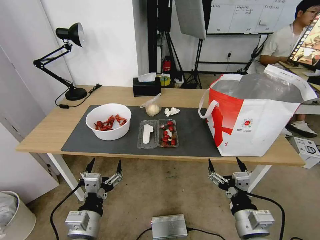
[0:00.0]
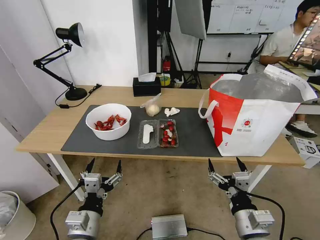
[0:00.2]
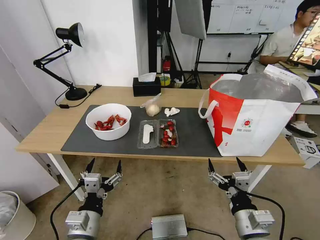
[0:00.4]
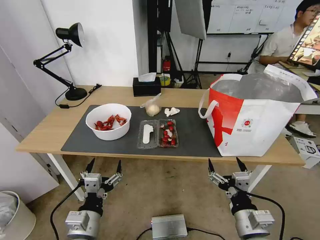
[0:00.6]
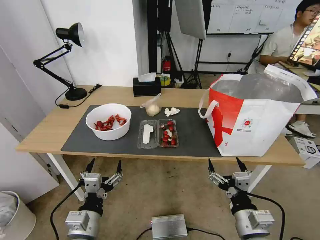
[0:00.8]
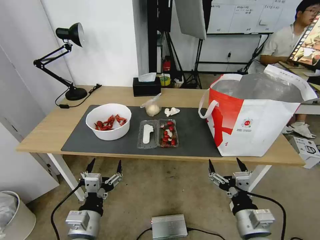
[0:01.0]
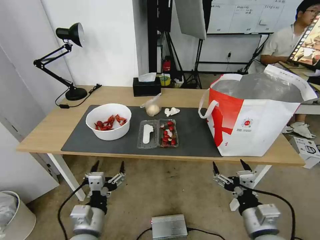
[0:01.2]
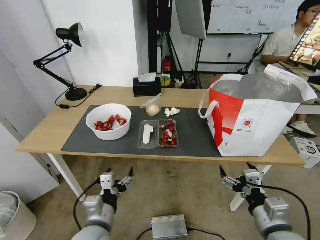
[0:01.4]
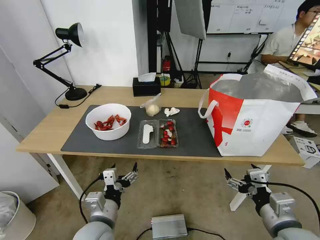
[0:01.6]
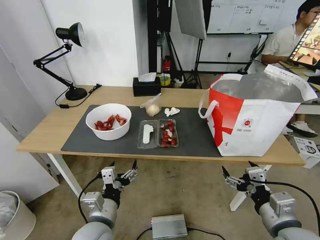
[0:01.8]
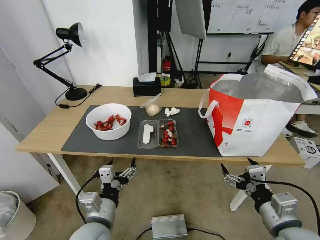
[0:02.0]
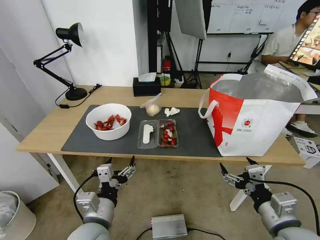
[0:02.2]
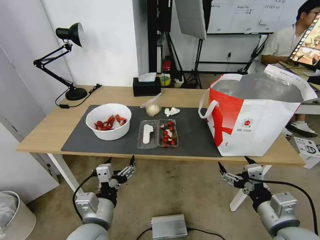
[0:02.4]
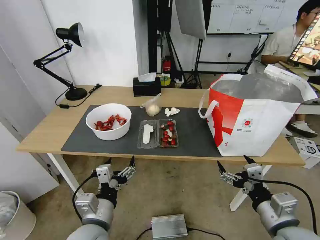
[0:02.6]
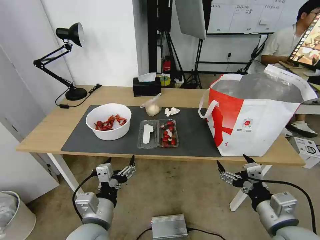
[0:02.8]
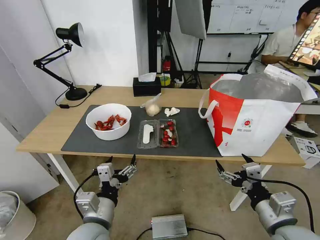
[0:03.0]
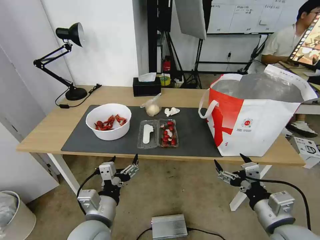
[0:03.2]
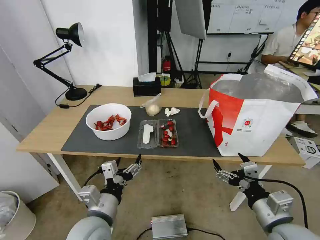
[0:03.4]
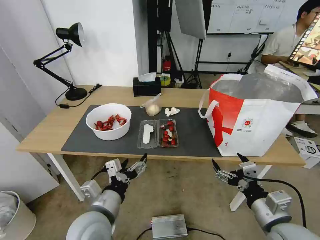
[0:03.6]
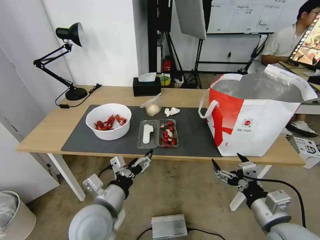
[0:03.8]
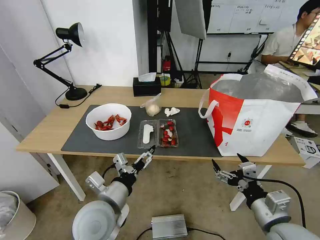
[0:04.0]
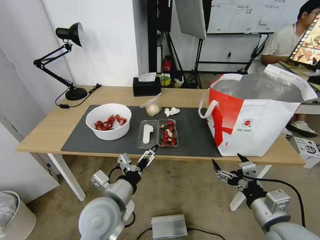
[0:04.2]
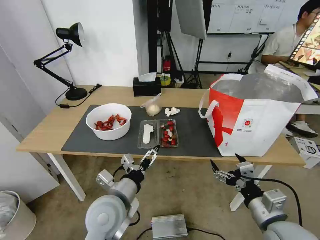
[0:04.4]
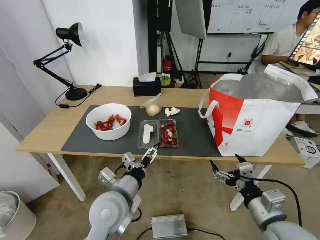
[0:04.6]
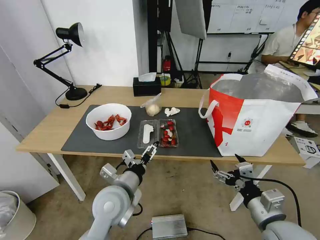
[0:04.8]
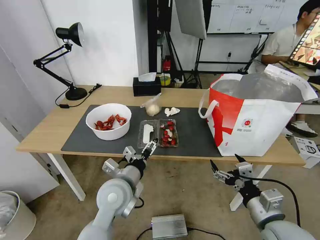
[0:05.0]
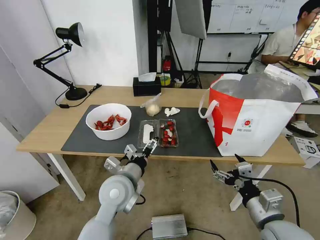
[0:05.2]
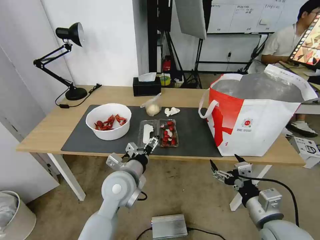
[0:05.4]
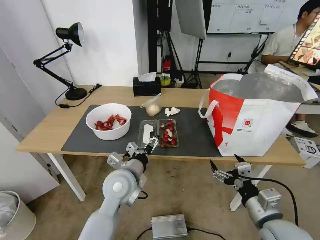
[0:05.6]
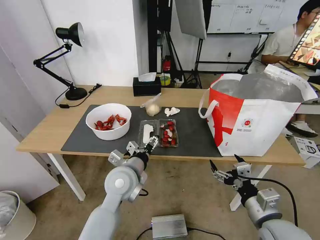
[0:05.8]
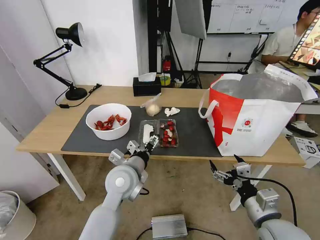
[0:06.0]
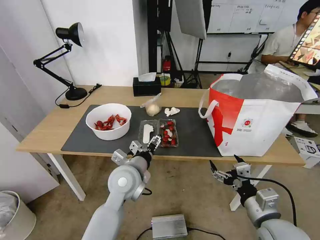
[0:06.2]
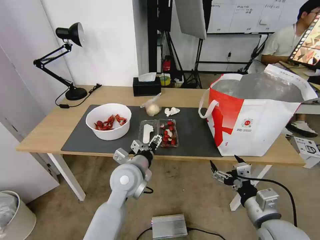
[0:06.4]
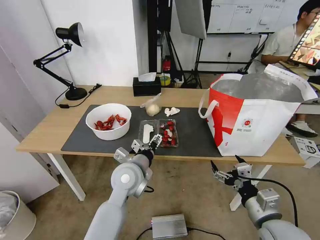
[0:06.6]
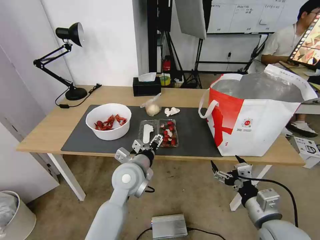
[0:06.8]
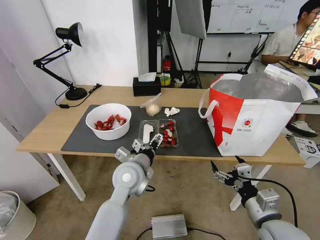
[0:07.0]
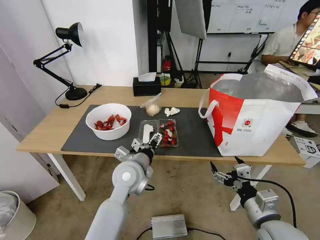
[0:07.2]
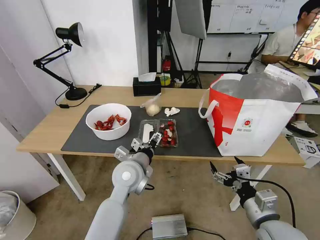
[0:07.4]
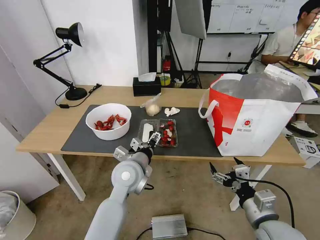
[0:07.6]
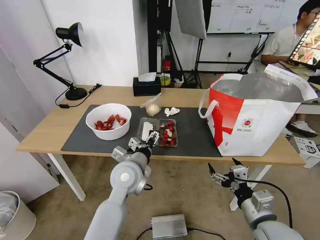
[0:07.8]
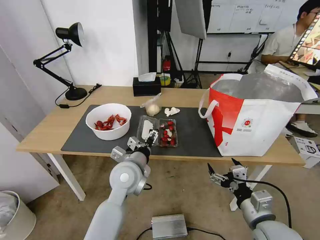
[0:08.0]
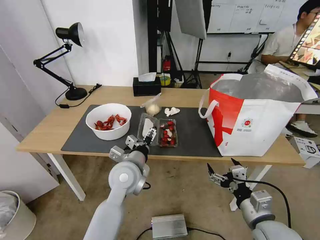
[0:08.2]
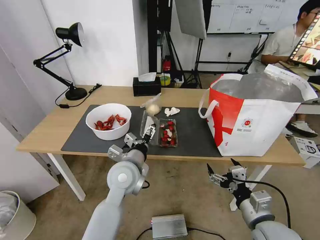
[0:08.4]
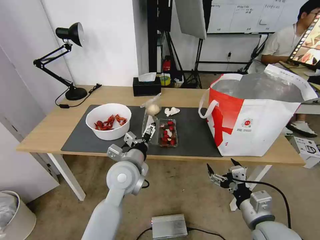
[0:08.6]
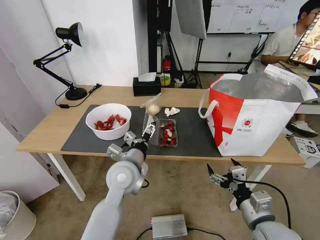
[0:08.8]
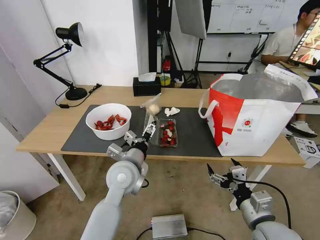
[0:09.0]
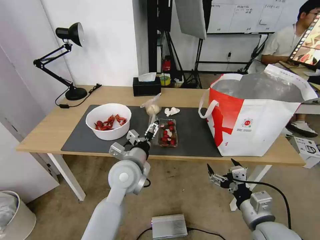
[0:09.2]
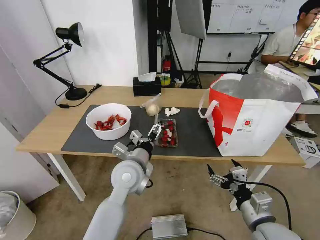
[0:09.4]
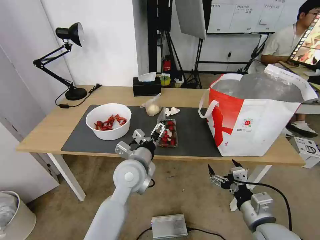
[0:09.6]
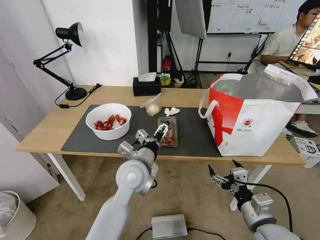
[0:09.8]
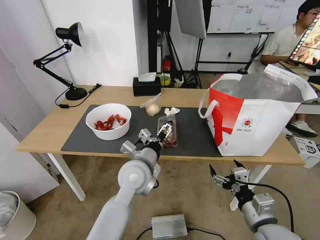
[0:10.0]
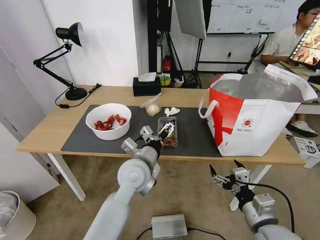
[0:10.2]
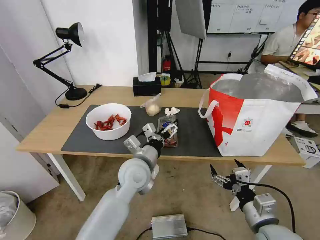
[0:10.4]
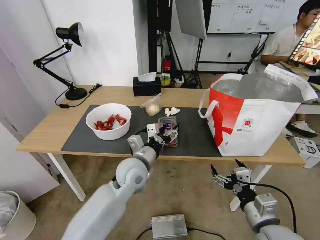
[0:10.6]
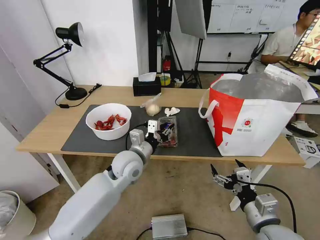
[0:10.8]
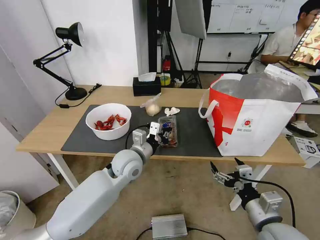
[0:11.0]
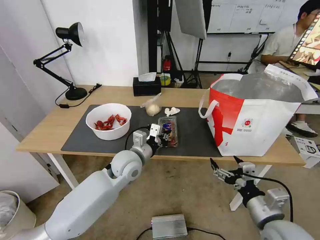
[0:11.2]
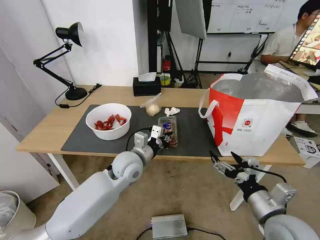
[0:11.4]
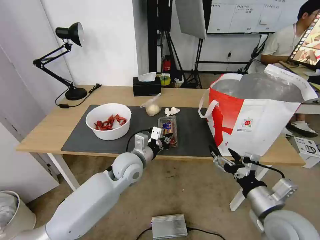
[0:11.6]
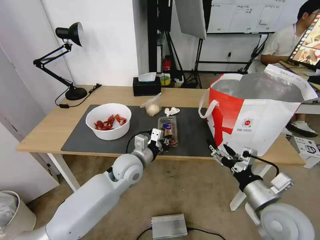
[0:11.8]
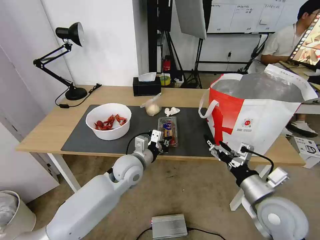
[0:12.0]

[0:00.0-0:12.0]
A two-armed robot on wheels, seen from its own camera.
Task of the whole recording: Pick up the trash from the table and place it into the takeout bag.
0:01.6 to 0:03.0: The grippers stay close to where they were, moving slightly.
0:03.0 to 0:04.4: The left gripper moves forward, about 5 cm.
0:04.4 to 0:06.0: The left gripper shifts roughly 10 cm forward.
0:06.0 to 0:09.0: The grippers make only small movements.
0:10.4 to 0:12.0: The right gripper goes roughly 5 cm forward, while the left gripper shifts by some 5 cm, and closes.

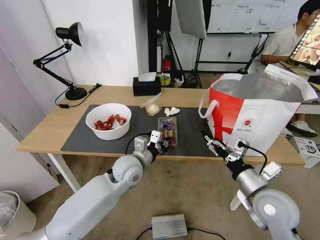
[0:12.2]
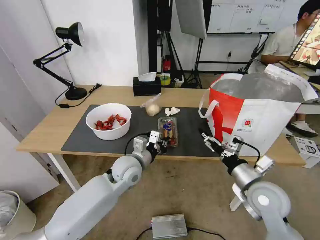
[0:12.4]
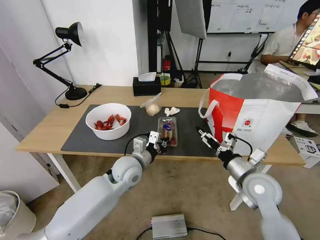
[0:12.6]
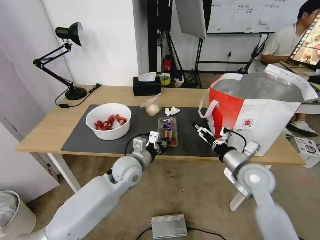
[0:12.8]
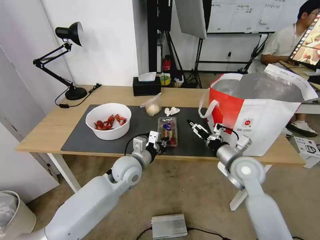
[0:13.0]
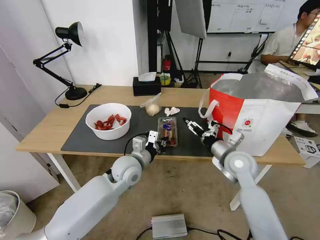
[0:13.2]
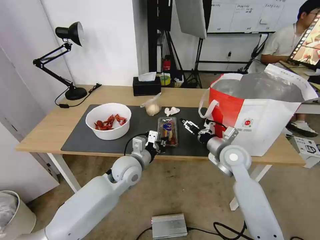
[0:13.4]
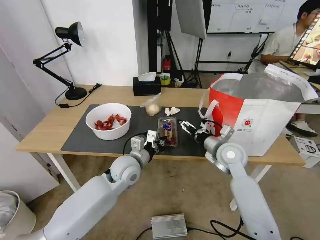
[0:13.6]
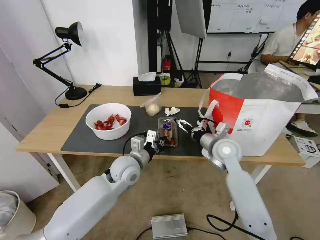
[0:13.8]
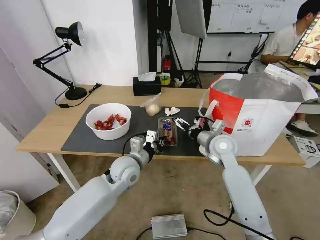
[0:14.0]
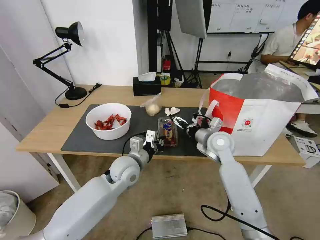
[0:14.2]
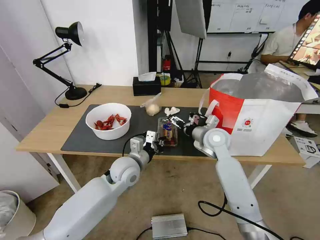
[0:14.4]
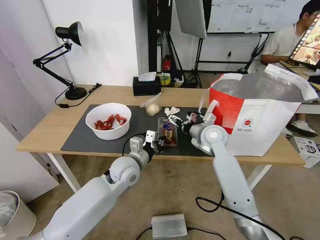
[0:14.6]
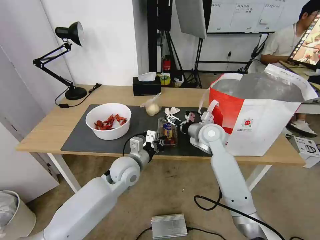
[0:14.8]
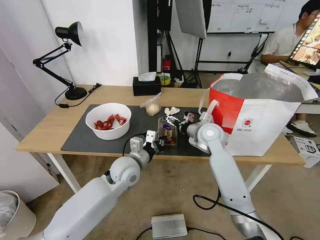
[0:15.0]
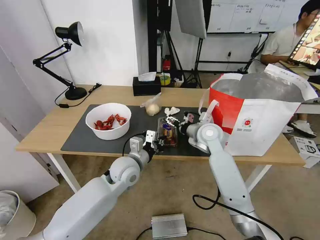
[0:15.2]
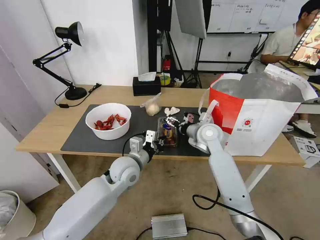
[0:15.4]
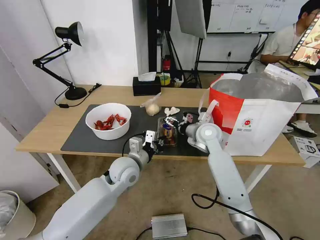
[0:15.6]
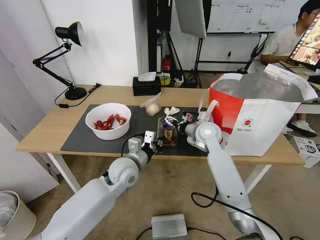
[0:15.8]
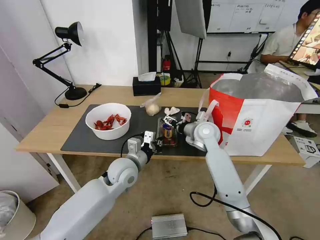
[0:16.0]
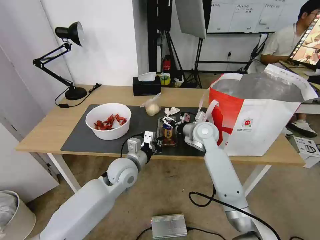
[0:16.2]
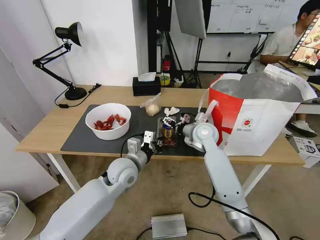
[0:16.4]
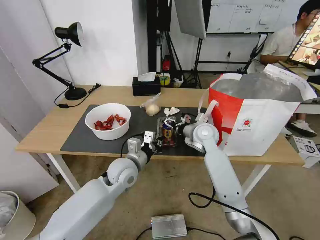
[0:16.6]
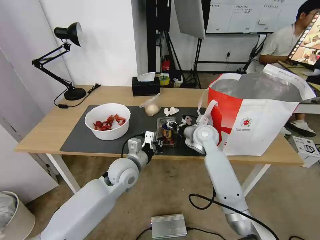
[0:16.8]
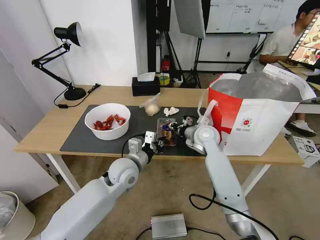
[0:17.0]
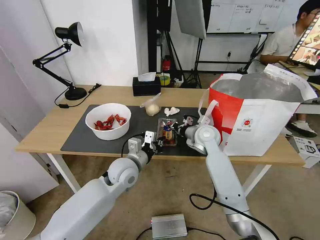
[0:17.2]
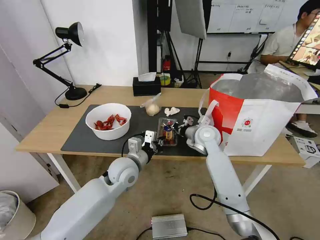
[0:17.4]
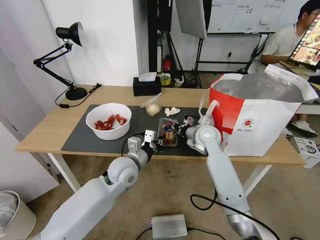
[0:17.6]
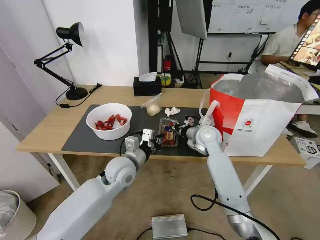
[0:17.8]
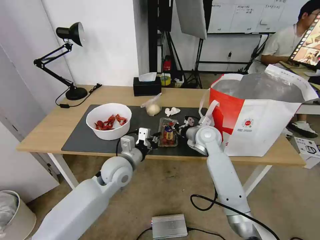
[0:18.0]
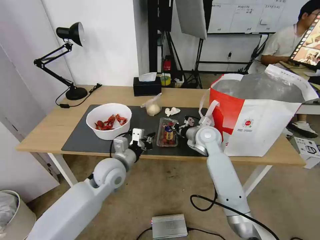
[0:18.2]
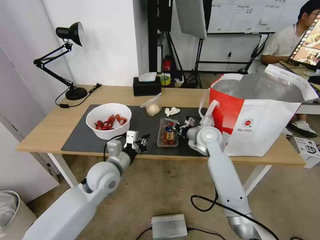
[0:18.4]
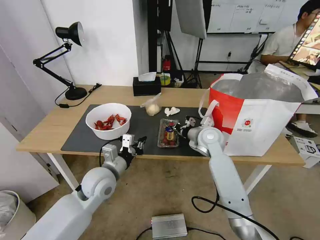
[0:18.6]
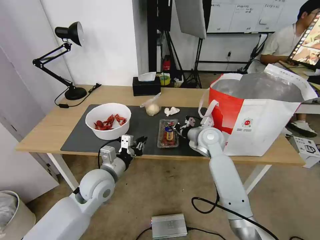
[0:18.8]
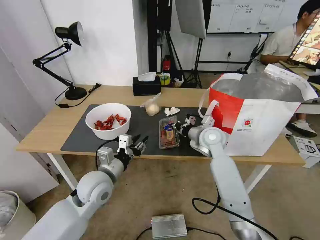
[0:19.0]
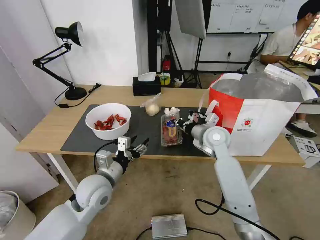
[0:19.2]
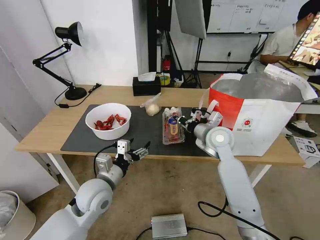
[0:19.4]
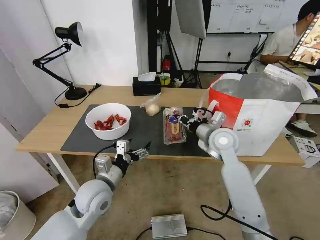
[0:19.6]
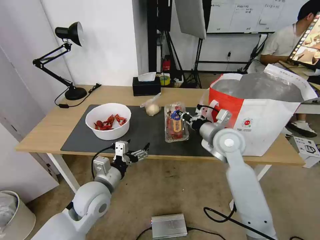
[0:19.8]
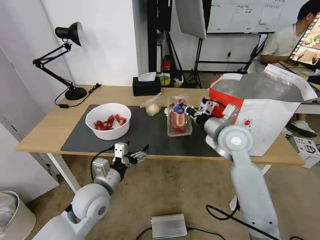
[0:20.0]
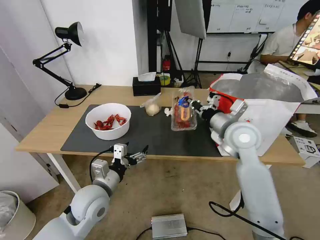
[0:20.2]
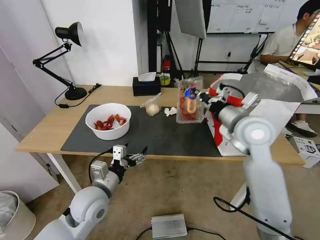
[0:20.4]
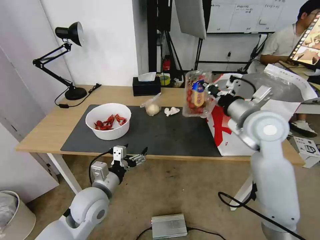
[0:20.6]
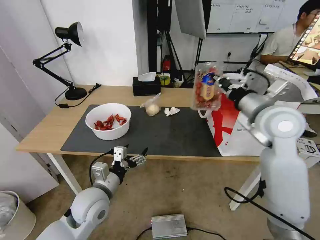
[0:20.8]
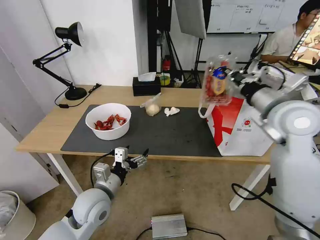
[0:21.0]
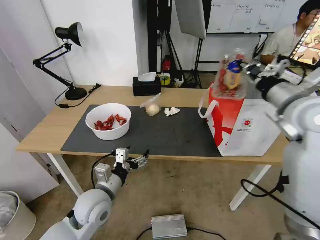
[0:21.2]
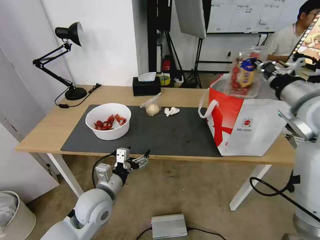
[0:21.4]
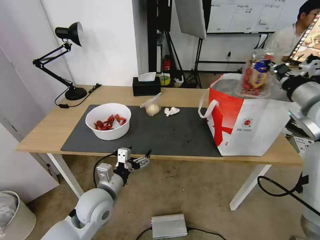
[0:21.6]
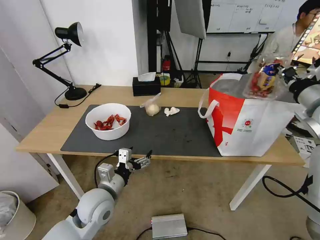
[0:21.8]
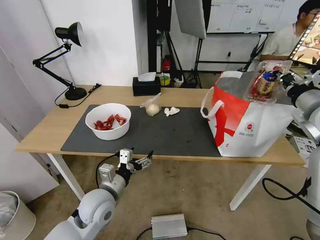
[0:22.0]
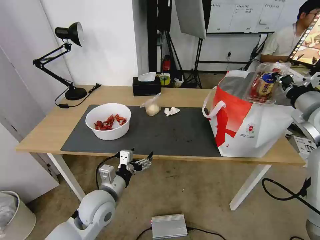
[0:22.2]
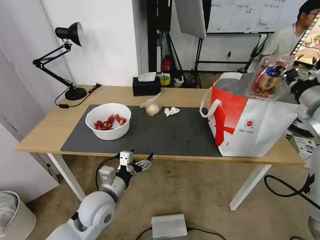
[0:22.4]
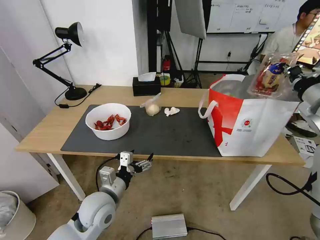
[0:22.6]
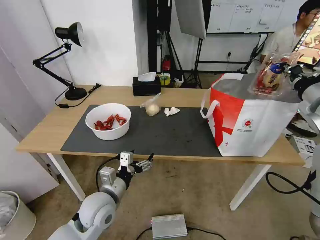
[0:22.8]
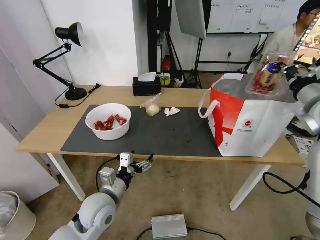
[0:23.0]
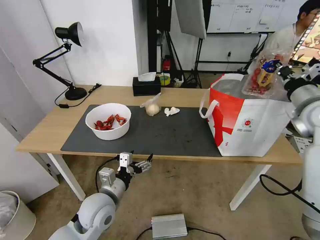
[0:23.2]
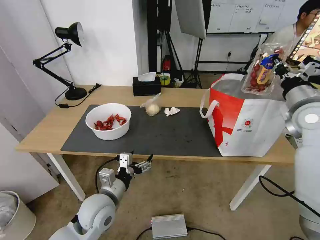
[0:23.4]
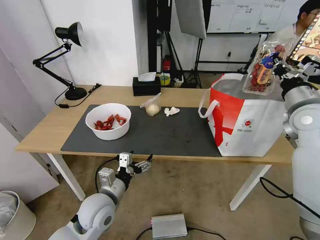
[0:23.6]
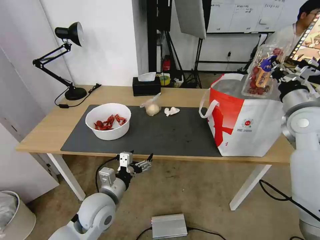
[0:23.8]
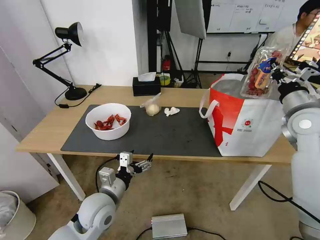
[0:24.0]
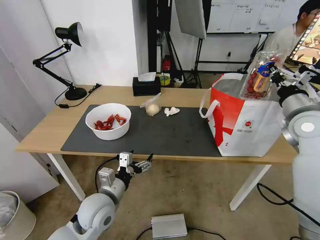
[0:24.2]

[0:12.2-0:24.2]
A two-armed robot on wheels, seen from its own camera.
Task of the whole recording: Pick up the trash from the table and place it into the takeout bag.
0:12.2 to 0:13.8: The right gripper travels forward by roughly 15 cm.
0:13.8 to 0:15.2: The right gripper heads forward, covering roughly 5 cm.
0:15.2 to 0:16.6: The grippers move only a little.
0:16.6 to 0:18.2: The right gripper closes its fingers.
0:18.2 to 0:19.8: The right gripper travels backward and upward by roughly 10 cm, while the left gripper goes about 10 cm backward, and opens.
0:19.8 to 0:21.2: The right gripper is displaced upward and to the right by roughly 20 cm.
0:21.2 to 0:22.6: The right gripper goes some 10 cm to the right.
0:22.6 to 0:24.2: The right gripper is displaced downward by roughly 5 cm.
